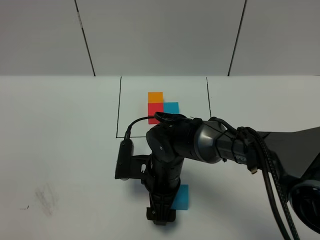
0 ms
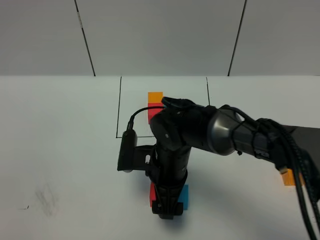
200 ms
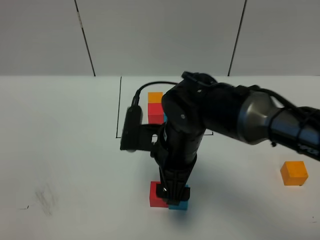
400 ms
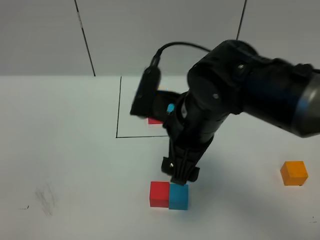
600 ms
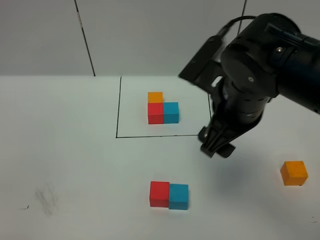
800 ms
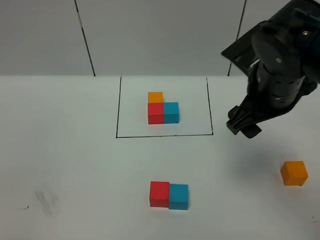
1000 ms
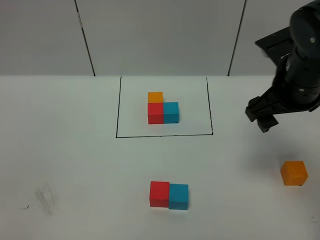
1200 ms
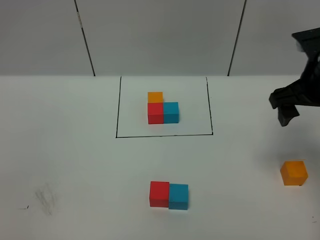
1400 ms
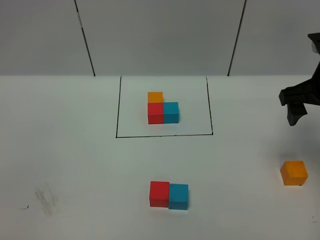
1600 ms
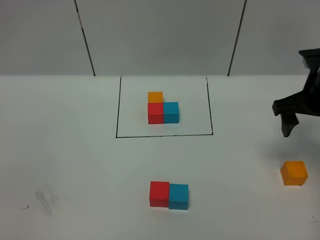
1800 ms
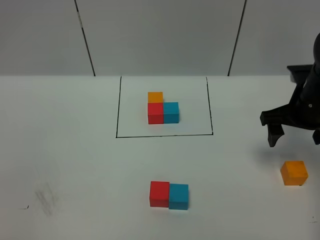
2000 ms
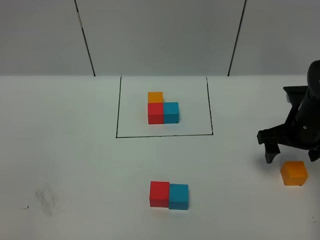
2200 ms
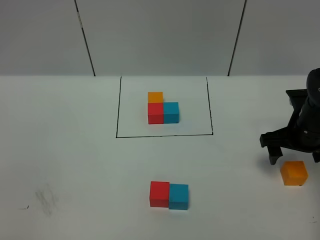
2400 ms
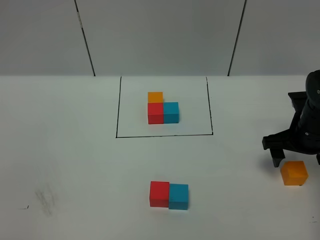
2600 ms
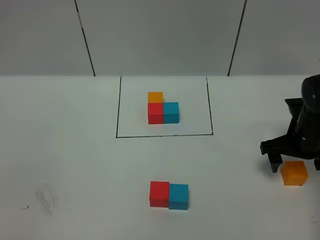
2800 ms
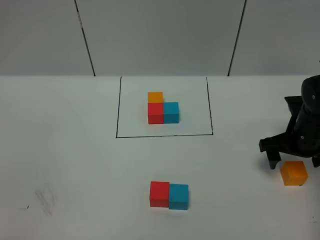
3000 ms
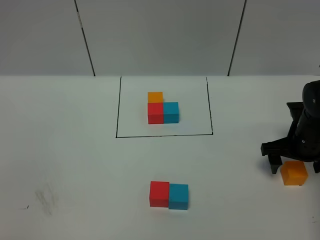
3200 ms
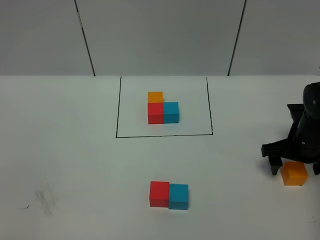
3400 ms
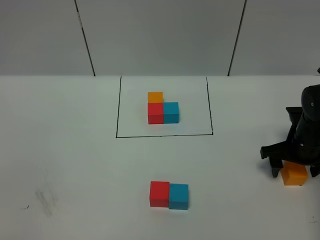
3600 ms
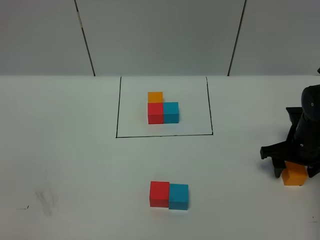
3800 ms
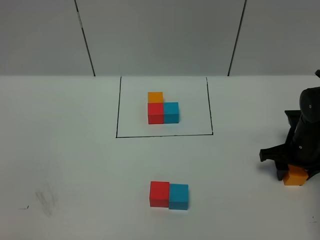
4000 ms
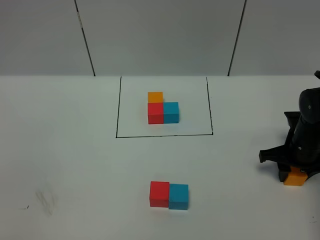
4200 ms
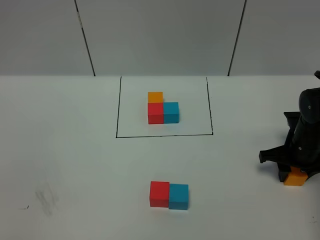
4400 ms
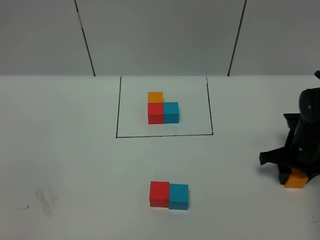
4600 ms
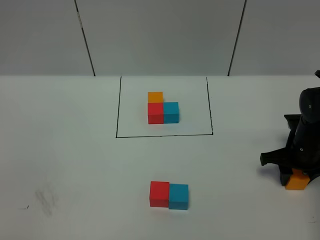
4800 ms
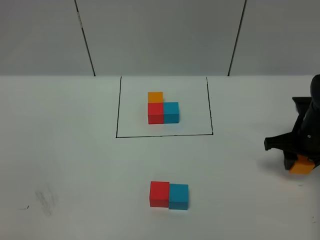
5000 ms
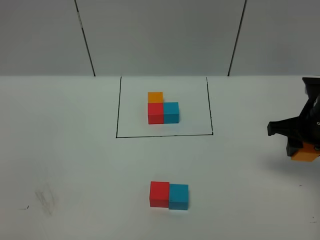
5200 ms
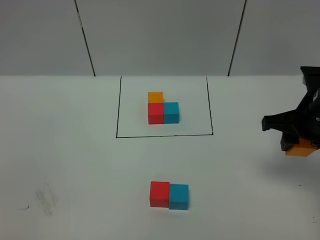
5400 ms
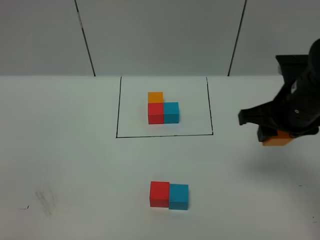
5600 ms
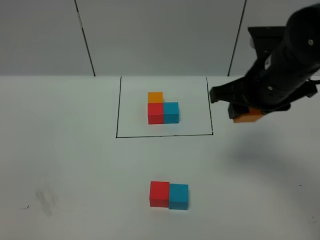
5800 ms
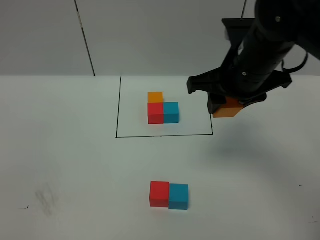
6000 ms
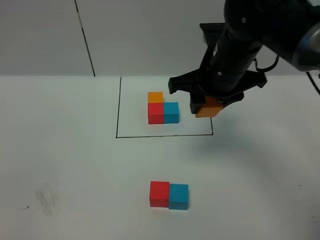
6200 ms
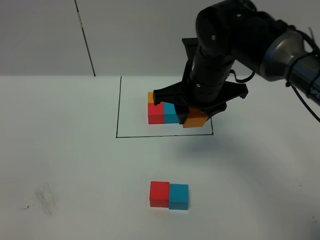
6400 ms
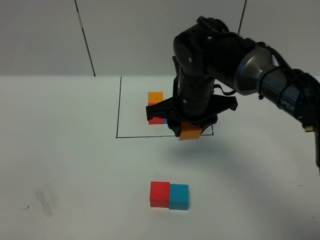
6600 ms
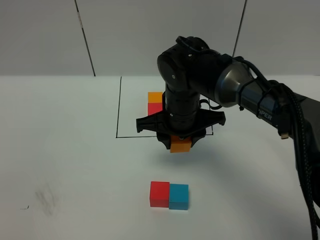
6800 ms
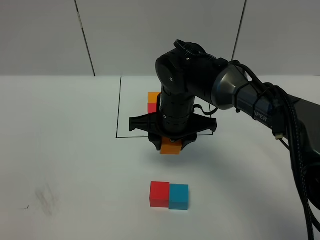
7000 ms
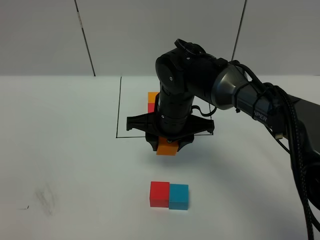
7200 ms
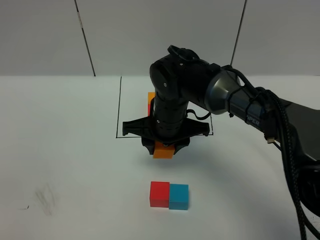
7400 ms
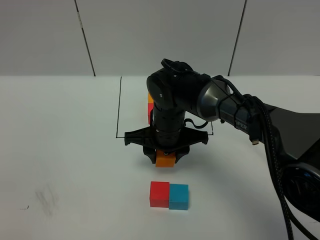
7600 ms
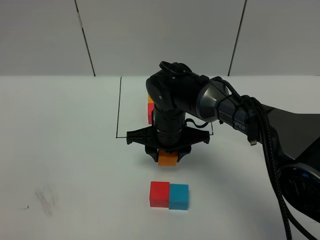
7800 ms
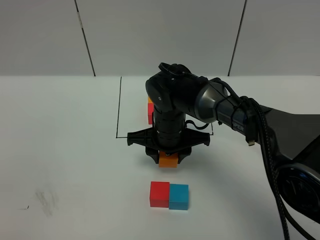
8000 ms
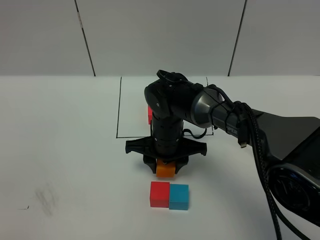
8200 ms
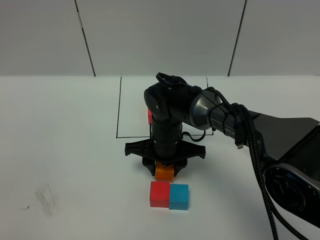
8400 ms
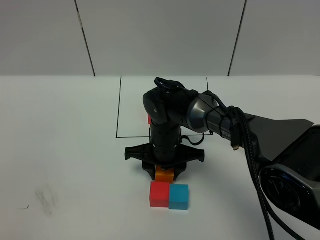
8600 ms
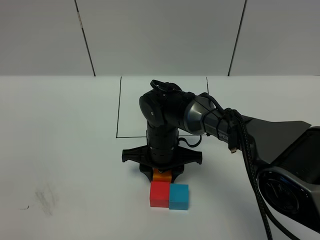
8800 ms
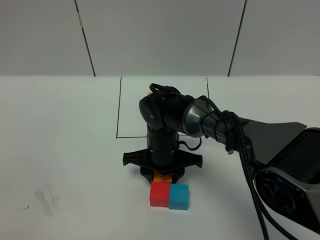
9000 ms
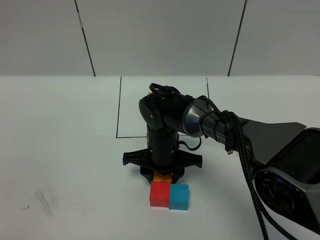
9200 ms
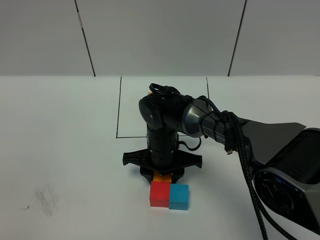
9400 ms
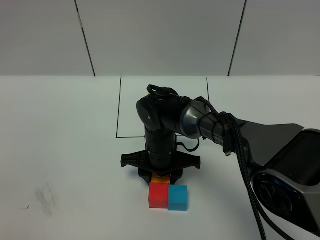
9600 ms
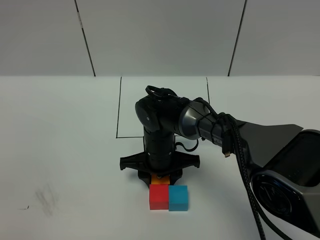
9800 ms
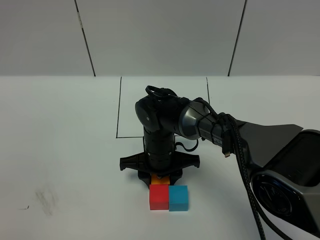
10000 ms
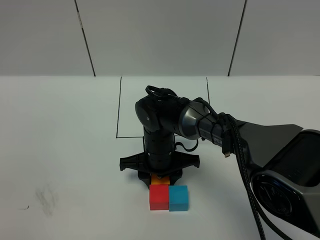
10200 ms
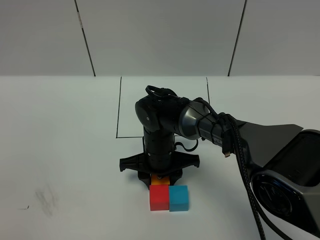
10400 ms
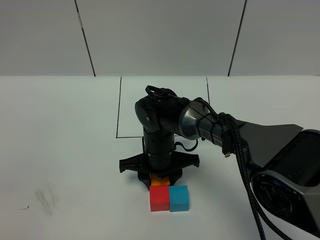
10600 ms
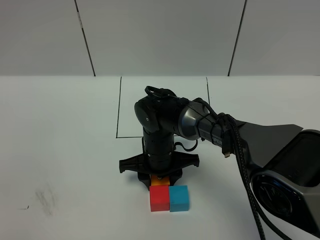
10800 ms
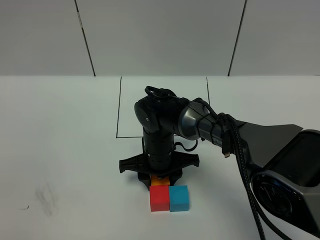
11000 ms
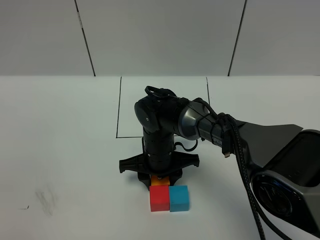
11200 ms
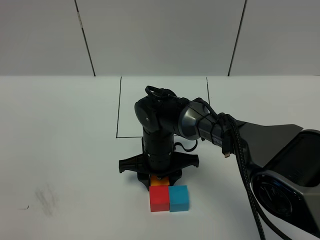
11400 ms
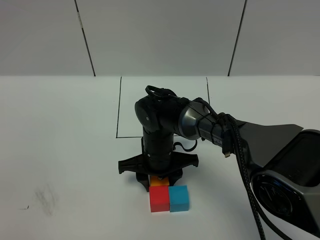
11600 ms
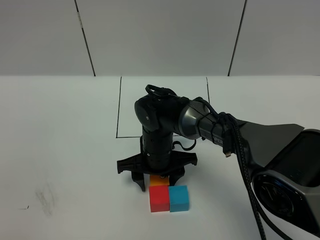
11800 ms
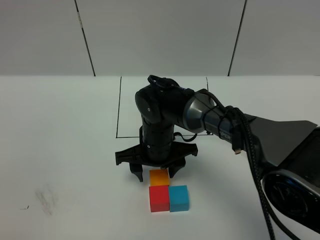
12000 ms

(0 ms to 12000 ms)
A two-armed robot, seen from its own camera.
Task of the whole recording: According to the building block template in front, assemble the scattered blocks together.
Step, 0 ms - 11800 ms: Put the orange cube on the behind of the red cube.
0 ms - 1600 ms: The right gripper heads to the right and upward, covering some 30 cm.
1600 ms - 3000 ms: The right gripper shifts roughly 15 cm downward.
3000 ms - 4400 ms: The right gripper closes up.
4400 ms - 6000 ms: The right gripper is displaced upward and to the left by some 25 cm.
6000 ms - 7600 ms: The right gripper goes roughly 20 cm downward and to the left.
7600 ms - 9000 ms: The right gripper shifts roughly 5 cm downward.
9000 ms - 12000 ms: The grippers move only a little.

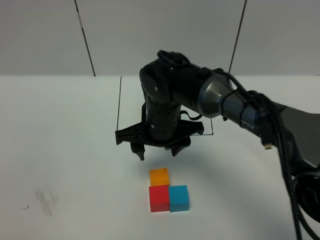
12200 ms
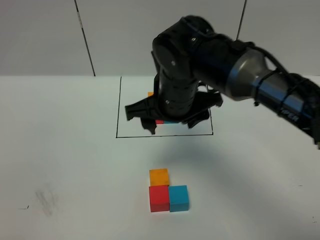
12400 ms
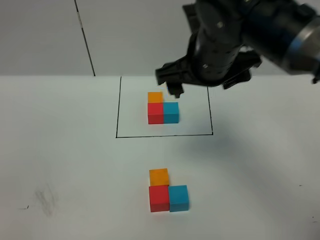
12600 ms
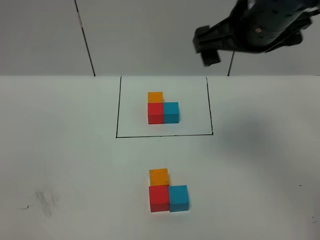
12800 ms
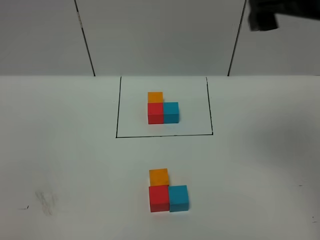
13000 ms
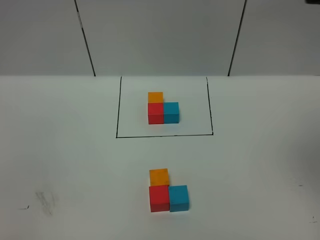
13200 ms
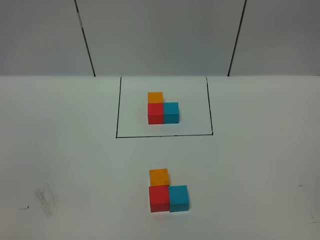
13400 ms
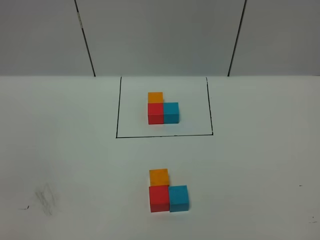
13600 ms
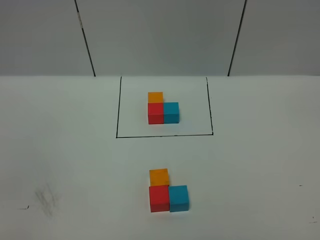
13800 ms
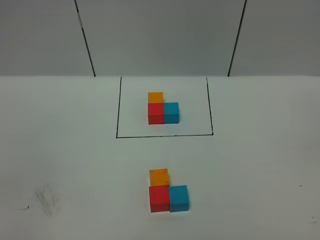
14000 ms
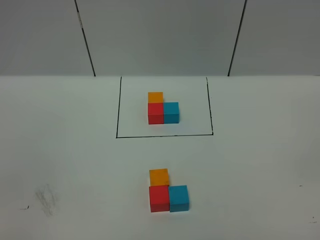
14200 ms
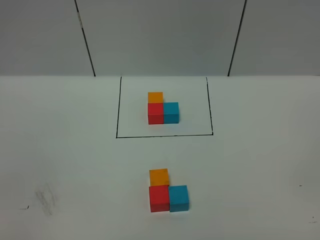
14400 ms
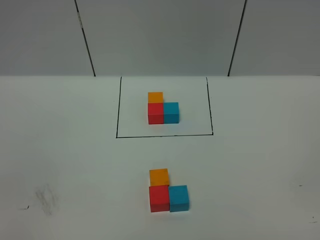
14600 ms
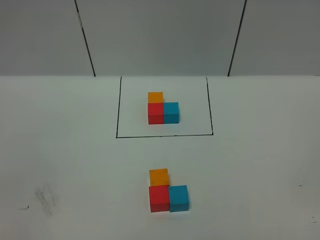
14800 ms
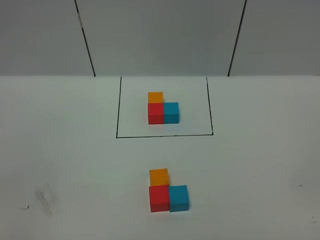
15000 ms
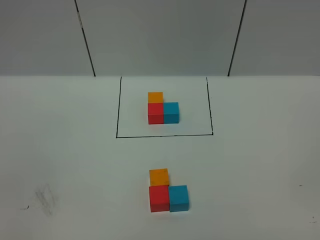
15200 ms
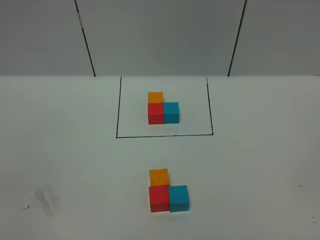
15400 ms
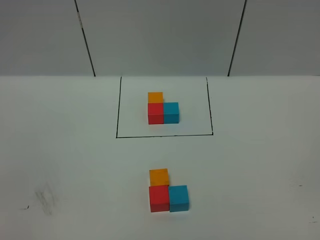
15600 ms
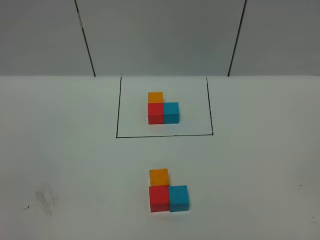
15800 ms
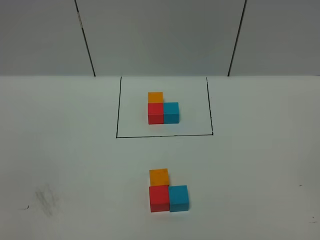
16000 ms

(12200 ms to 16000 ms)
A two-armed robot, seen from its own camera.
Task of the whole recording: According to the building block template in front, assemble the scattered blocks together.
12200 ms - 13400 ms: The right gripper shifts some 50 cm upward, to the right and backward, and opens up.

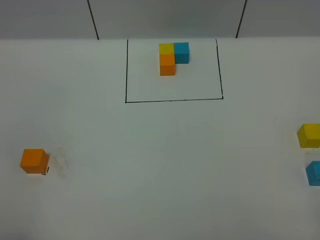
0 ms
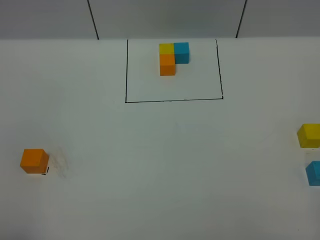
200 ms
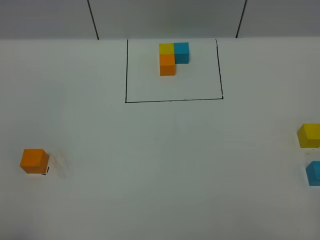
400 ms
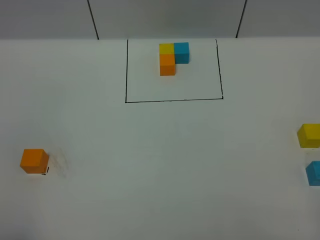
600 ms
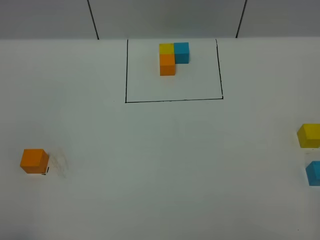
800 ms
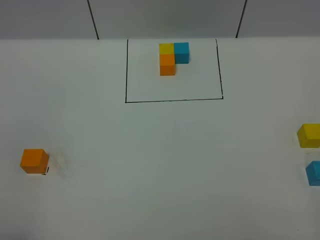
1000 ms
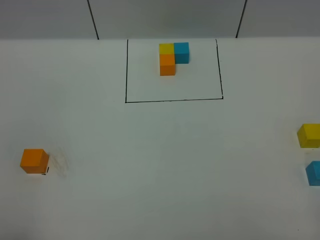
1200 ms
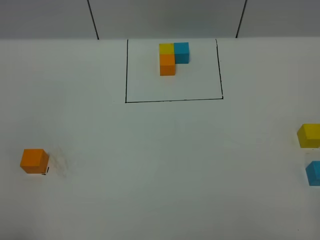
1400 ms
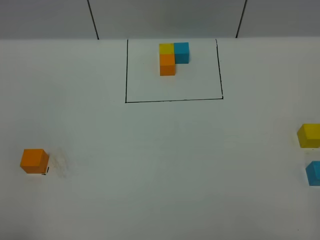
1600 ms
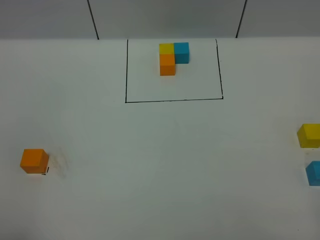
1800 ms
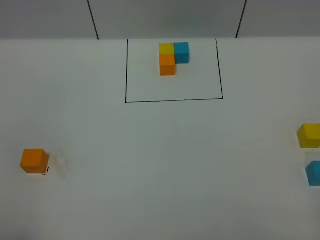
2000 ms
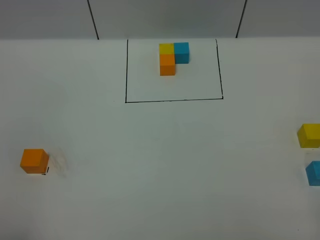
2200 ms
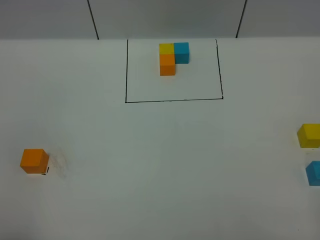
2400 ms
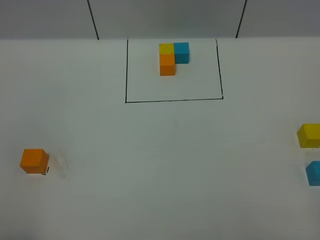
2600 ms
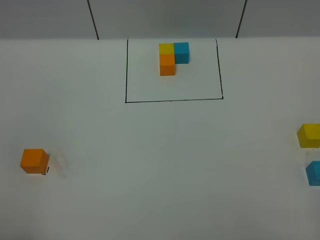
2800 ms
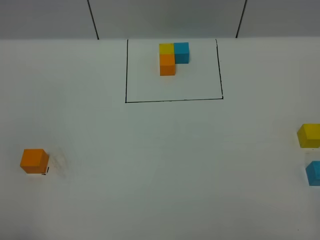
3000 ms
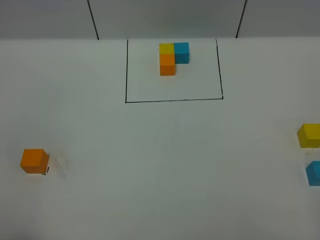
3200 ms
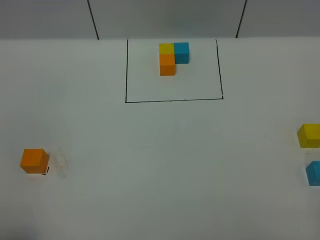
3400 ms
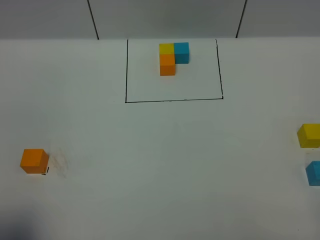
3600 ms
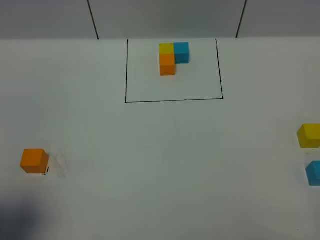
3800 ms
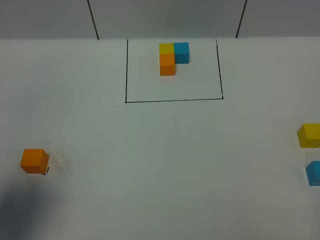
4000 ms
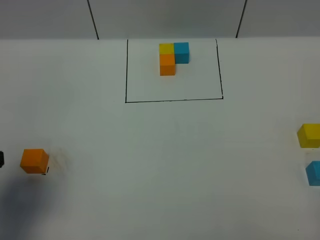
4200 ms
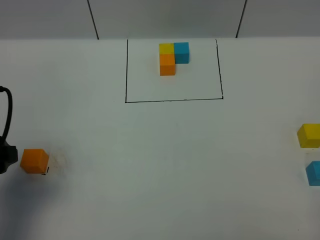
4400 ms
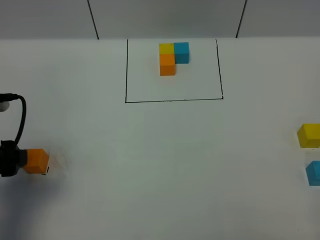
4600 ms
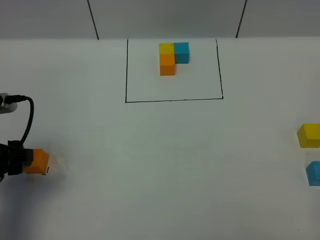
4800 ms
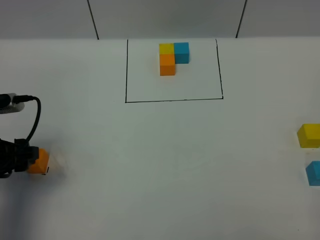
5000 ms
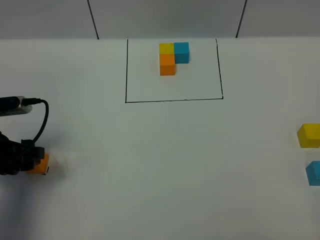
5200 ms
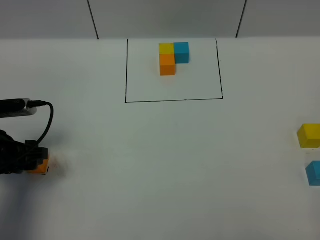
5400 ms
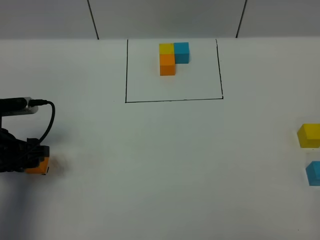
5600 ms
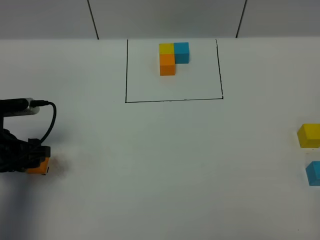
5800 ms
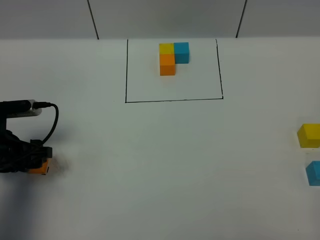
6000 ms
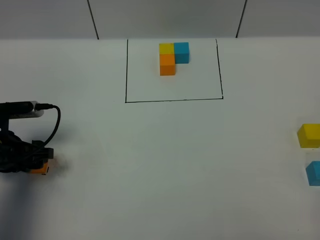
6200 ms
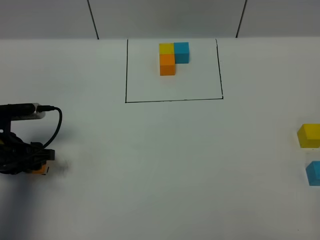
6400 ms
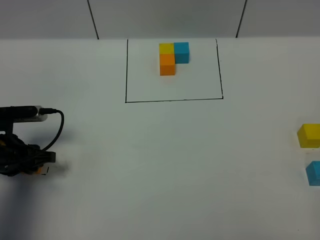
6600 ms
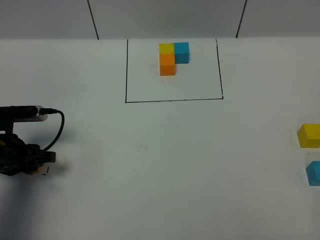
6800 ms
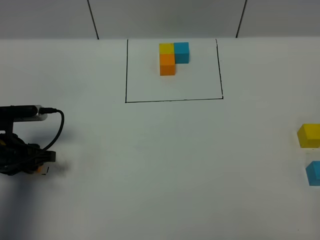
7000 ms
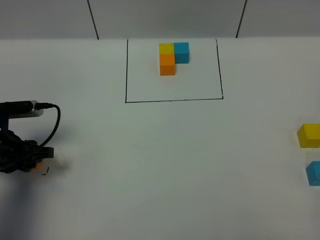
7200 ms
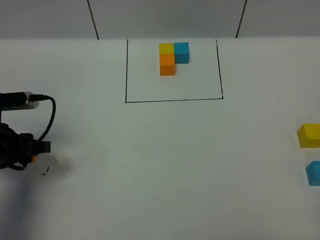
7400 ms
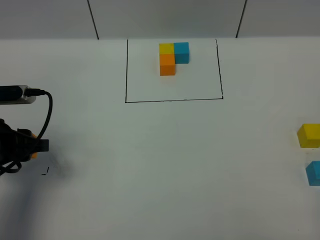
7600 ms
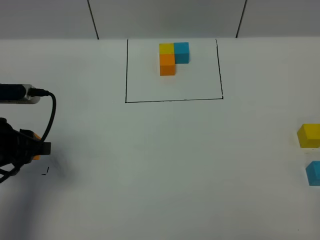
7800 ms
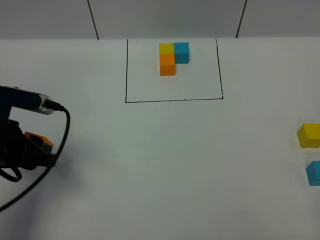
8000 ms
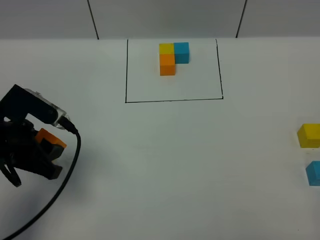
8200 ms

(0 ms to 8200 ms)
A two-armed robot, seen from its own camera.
Task of the whole recording: According to the building block template in front, assemble the scattered blocks together.
0 ms - 1600 ms: The two grippers keep their place.
3200 ms - 5000 ms: The left gripper travels forward and downward by some 25 cm.
5000 ms - 6600 ms: The left gripper is displaced downward by about 5 cm.
6600 ms - 8200 ms: The left gripper shifts about 10 cm upward and to the right.
